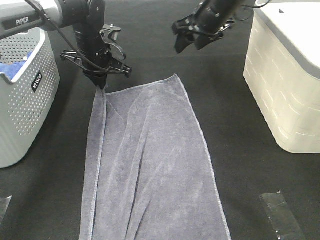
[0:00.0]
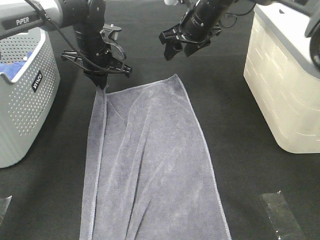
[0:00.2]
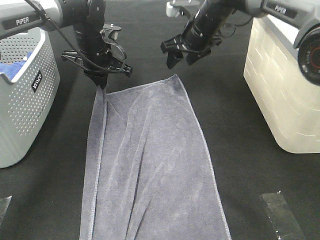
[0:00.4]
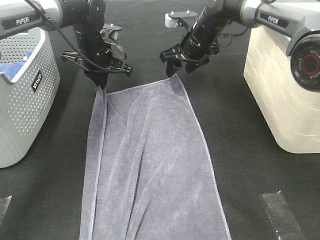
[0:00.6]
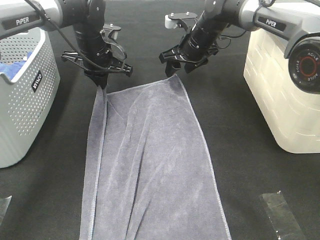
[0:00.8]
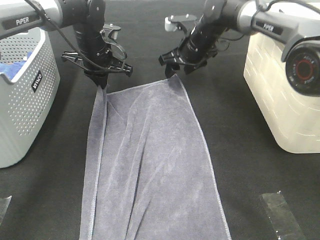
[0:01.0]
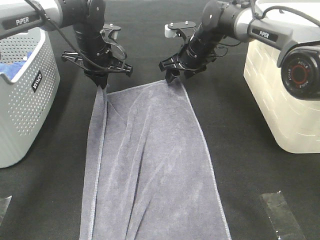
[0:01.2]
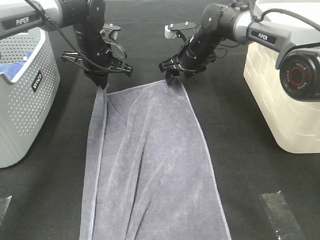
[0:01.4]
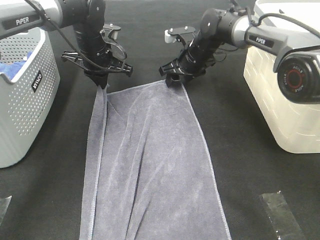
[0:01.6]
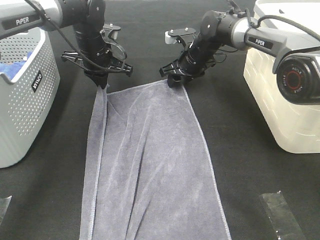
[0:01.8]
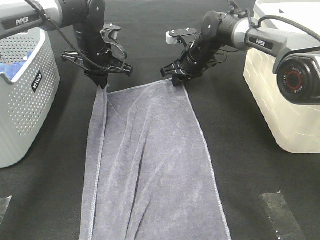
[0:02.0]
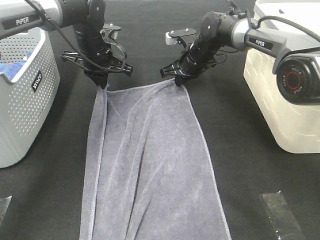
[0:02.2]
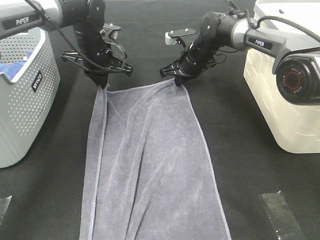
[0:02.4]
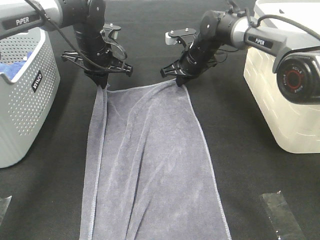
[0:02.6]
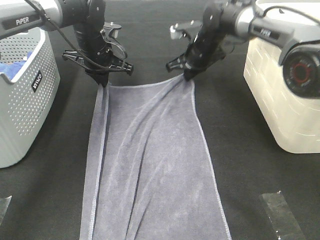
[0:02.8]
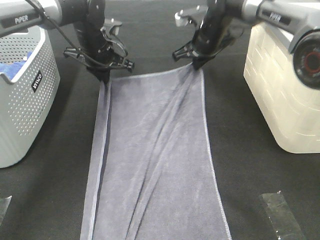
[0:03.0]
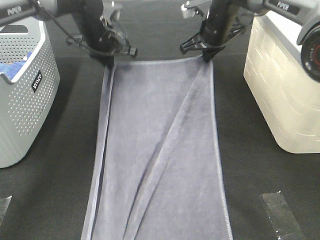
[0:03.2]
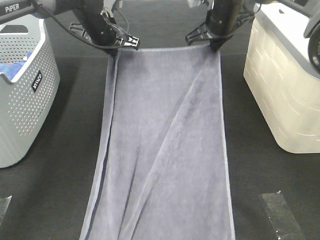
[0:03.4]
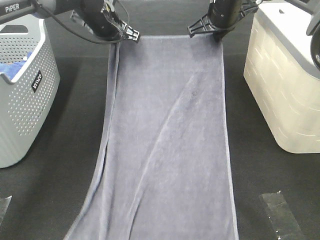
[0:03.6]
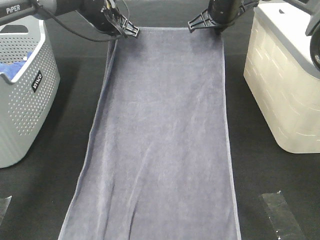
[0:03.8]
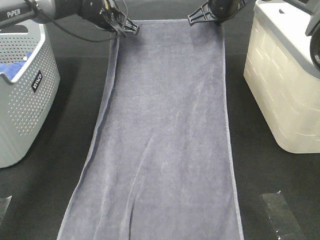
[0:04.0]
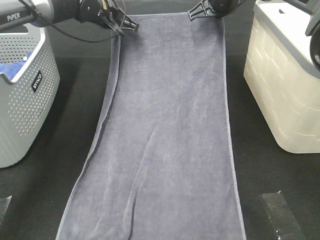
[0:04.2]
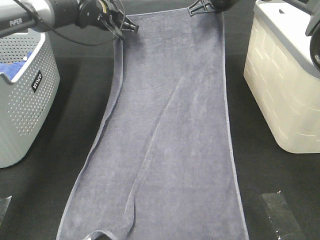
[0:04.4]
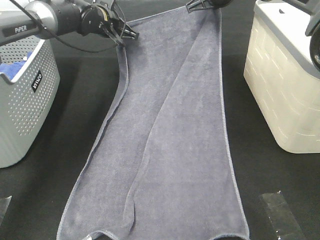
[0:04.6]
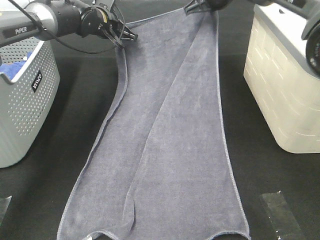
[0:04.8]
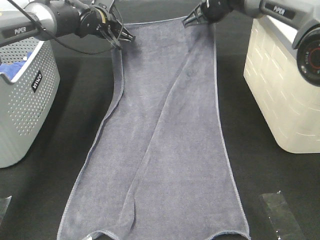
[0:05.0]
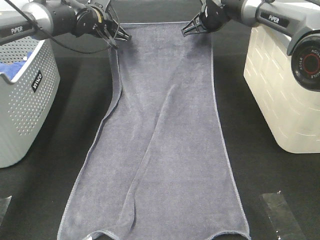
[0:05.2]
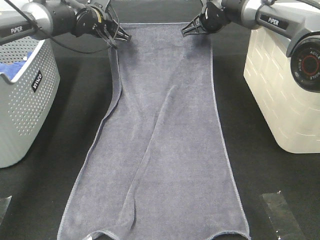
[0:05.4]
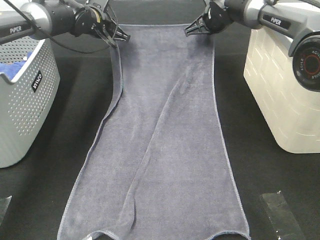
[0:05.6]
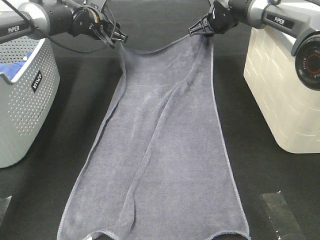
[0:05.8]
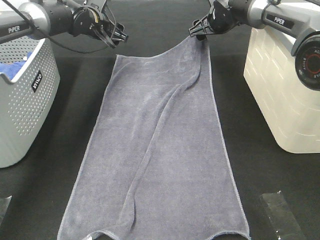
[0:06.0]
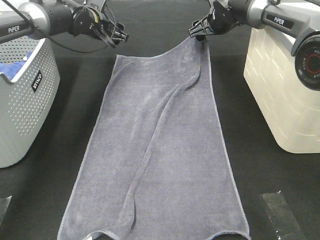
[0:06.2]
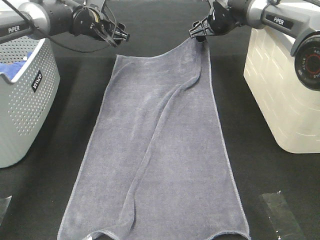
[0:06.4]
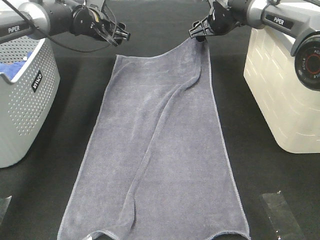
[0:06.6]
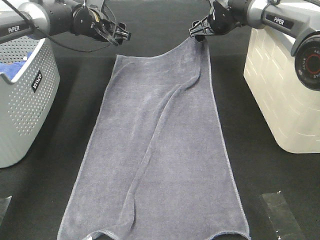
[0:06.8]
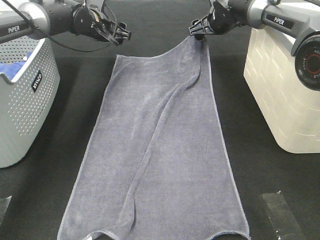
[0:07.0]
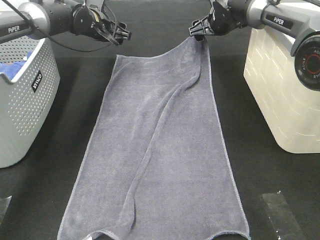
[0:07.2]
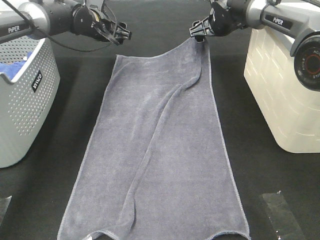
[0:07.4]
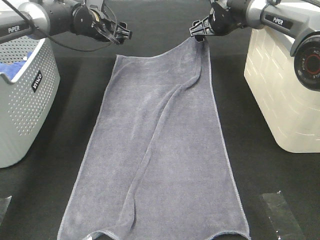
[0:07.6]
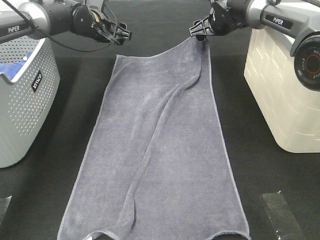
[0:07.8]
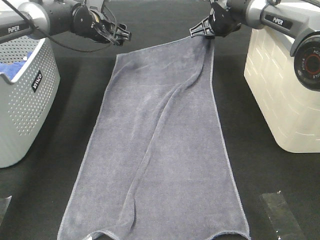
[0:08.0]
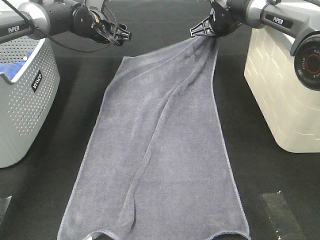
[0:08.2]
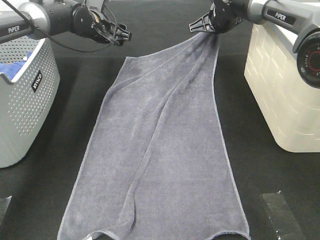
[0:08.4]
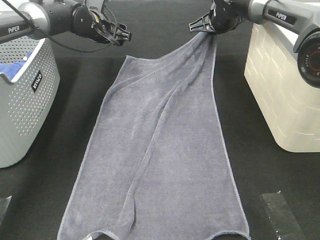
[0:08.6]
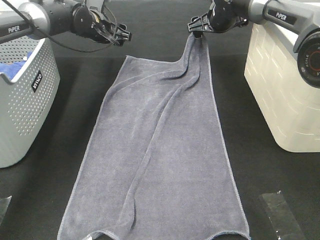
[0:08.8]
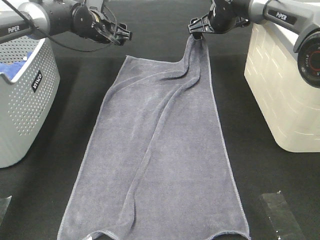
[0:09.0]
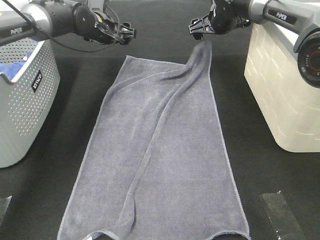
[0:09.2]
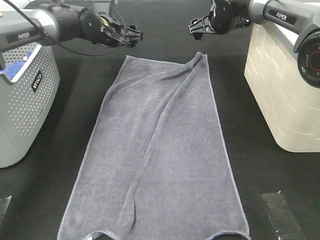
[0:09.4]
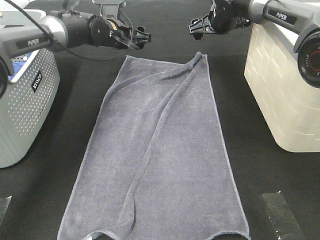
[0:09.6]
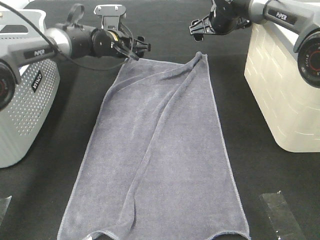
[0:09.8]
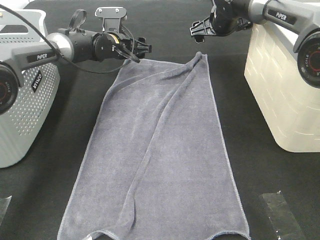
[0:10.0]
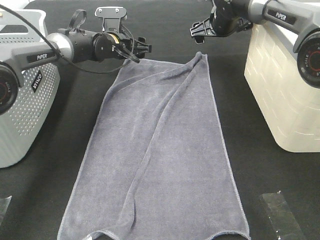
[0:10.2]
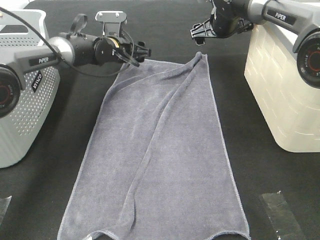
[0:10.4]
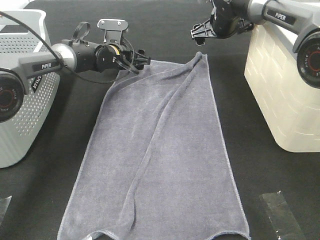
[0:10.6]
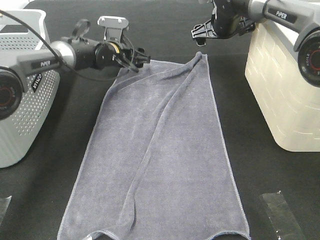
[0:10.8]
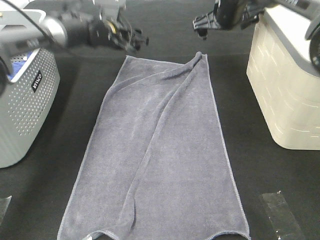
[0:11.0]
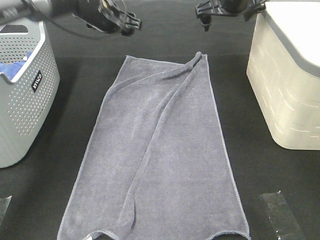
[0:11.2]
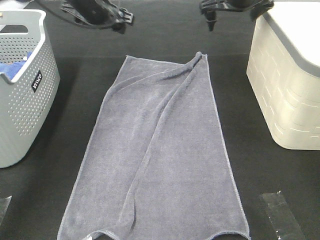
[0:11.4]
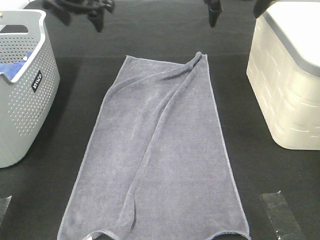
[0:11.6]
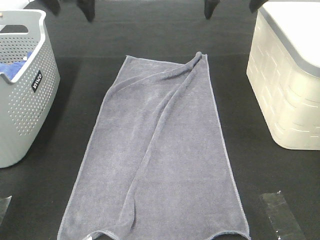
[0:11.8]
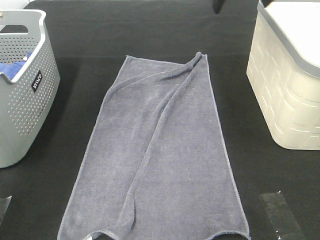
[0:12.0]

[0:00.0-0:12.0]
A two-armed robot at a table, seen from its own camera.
Task of the whole recording: Remove the towel and place it.
0:00.0 to 0:01.6: The right gripper goes some 10 cm downward.
0:01.6 to 0:03.0: The right gripper goes about 5 cm upward, and closes its fingers.
0:03.0 to 0:04.4: The left gripper moves forward, some 5 cm; the right gripper goes roughly 10 cm upward.
0:04.4 to 0:06.0: The left gripper opens up. The right gripper goes some 5 cm downward, and opens up.
0:06.0 to 0:07.6: The grippers move only a little.
0:07.6 to 0:09.0: The right gripper closes and opens again.
0:09.0 to 0:10.4: The left gripper moves downward, roughly 5 cm.
0:10.4 to 0:12.0: The left gripper shifts about 35 cm upward and backward; the right gripper goes some 20 cm upward and backward.

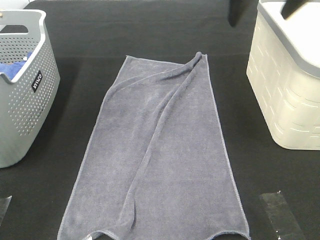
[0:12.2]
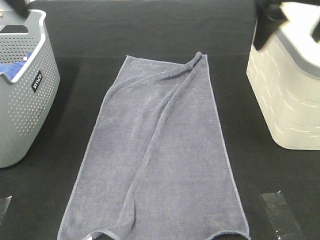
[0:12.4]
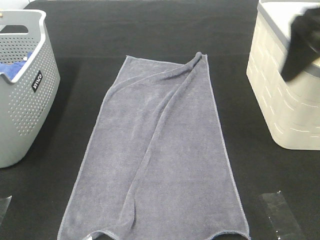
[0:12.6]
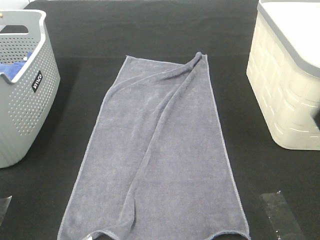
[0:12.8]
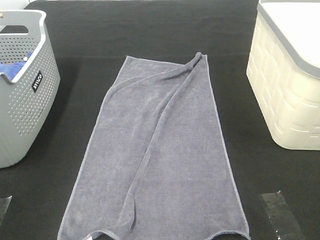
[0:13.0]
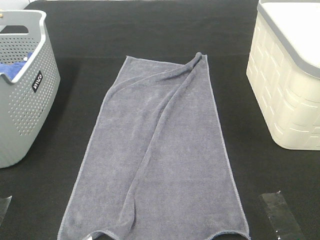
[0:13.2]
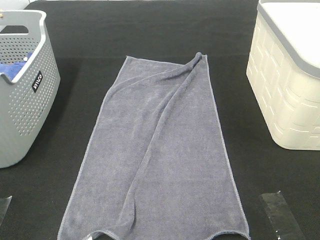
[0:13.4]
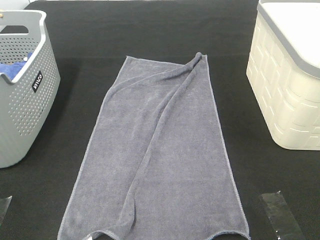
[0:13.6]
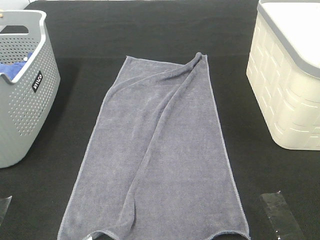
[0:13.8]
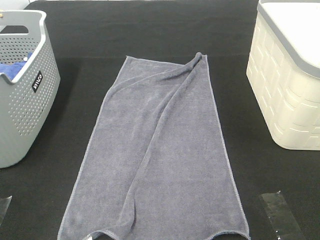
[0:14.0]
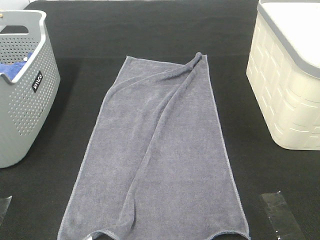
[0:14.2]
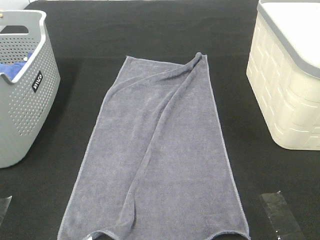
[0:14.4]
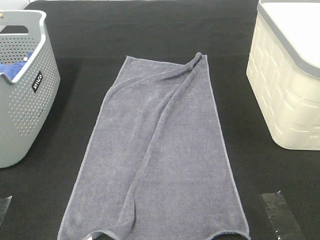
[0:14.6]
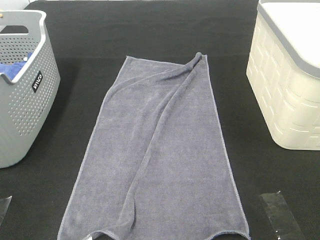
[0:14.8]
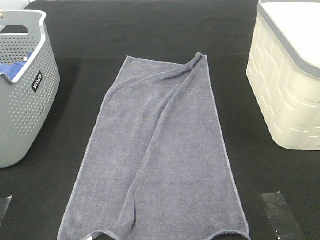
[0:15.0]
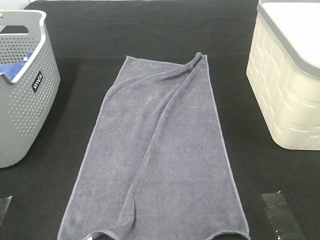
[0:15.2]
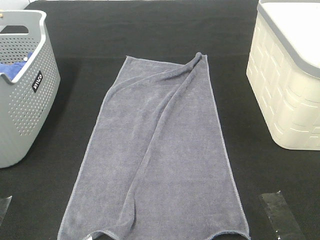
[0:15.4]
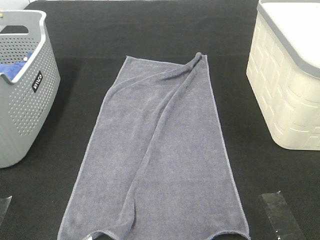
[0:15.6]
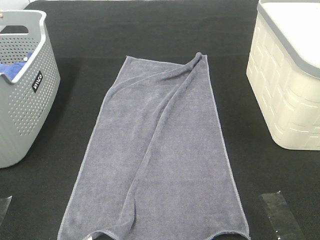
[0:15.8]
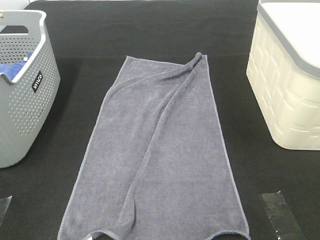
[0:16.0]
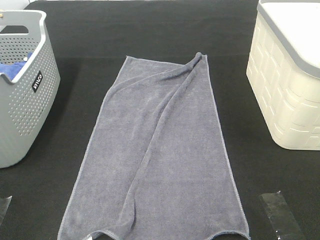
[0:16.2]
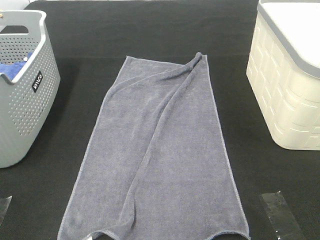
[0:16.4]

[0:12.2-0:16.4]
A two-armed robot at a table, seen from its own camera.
Task of the whole recording: Remove the towel and place it.
0:12.2 to 0:13.6: Both grippers move backward, roughly 35 cm.

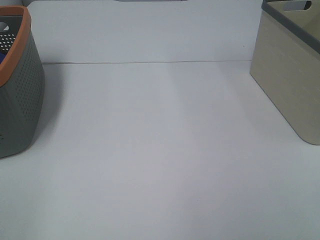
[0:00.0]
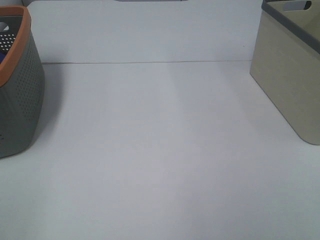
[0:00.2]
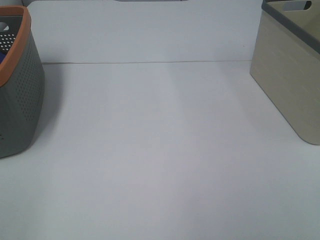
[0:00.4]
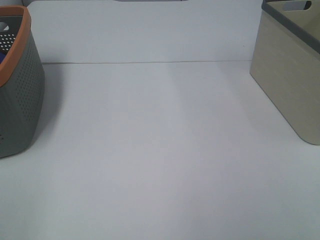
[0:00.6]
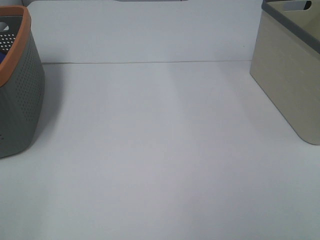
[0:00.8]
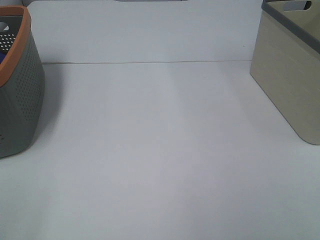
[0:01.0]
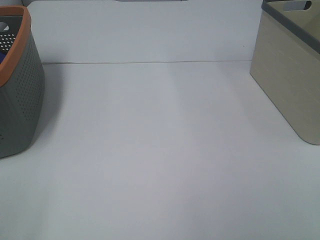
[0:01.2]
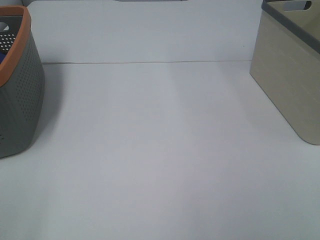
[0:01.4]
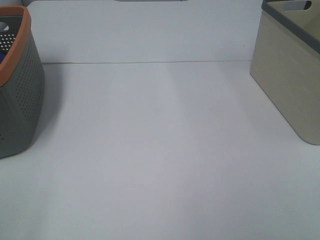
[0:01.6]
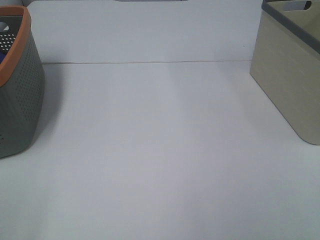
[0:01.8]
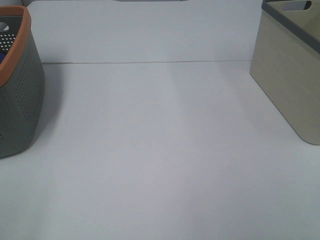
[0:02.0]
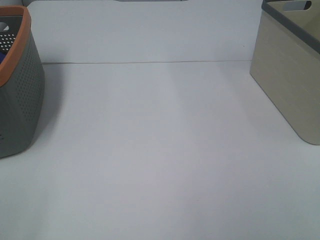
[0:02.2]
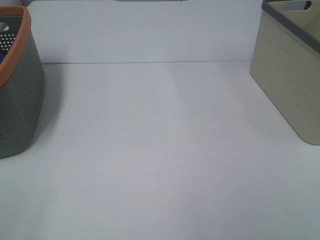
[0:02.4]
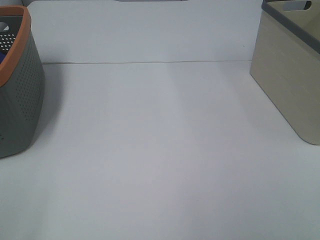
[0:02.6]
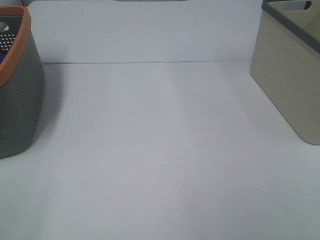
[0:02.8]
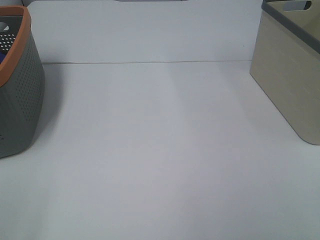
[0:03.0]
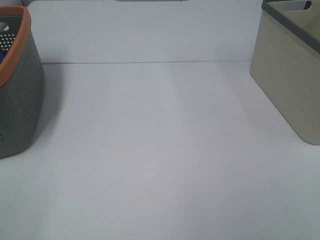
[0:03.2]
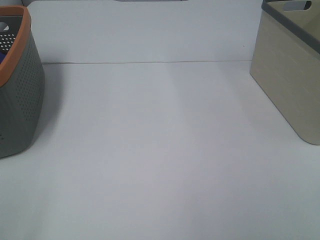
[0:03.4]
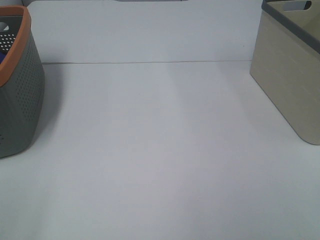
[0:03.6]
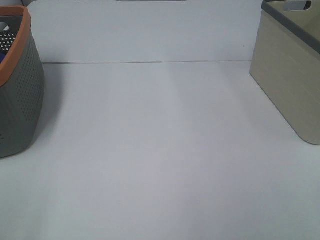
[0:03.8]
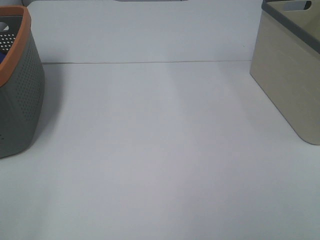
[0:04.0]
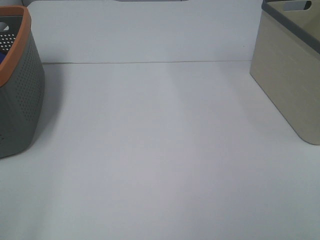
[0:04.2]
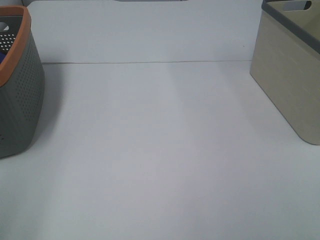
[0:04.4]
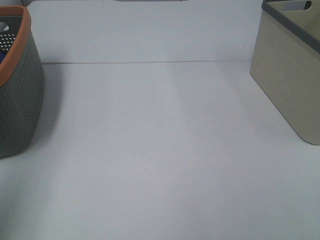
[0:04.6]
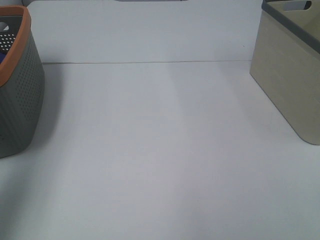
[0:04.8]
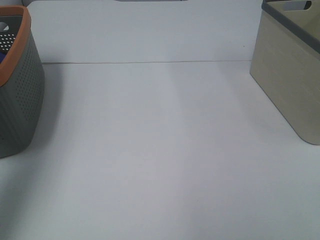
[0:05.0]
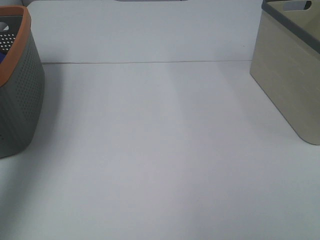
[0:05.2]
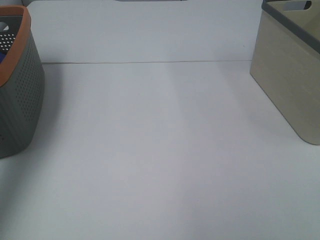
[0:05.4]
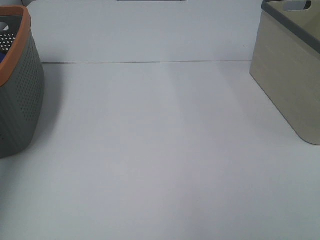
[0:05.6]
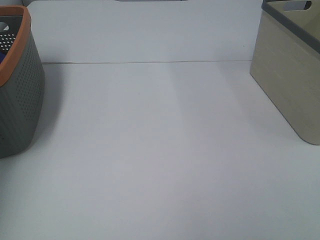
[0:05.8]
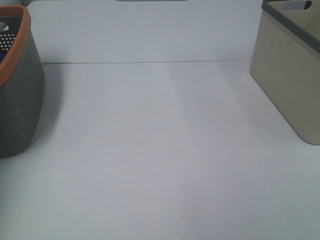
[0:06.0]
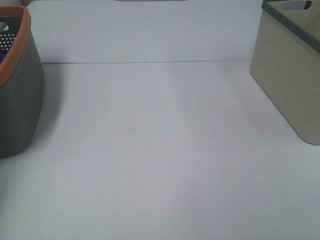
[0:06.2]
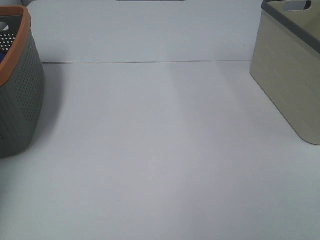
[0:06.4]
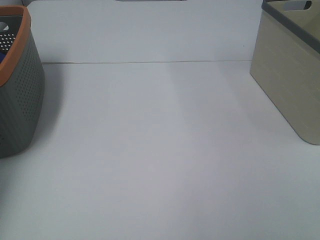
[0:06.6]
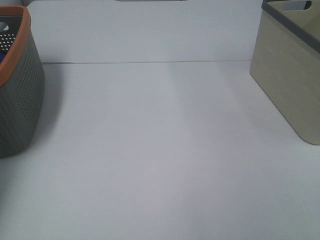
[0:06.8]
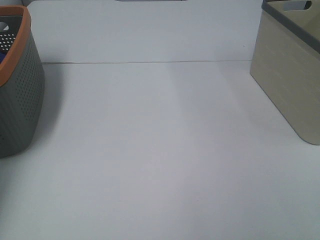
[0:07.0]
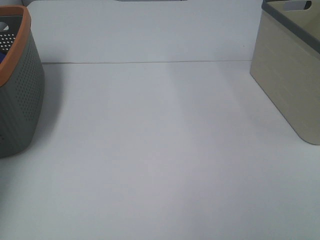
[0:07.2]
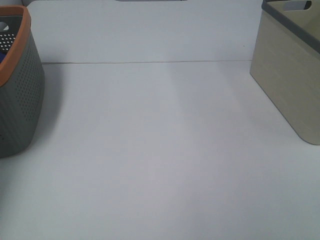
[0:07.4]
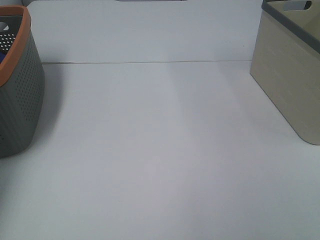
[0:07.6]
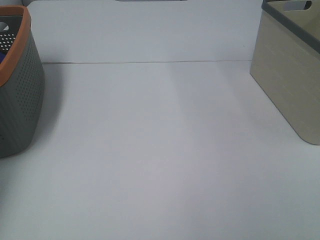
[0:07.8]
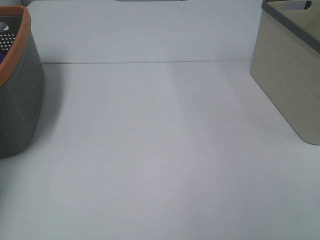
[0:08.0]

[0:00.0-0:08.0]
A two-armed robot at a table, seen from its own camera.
Task of the whole recording: Remove the towel and place it.
0:00.0 to 0:03.2: Neither gripper changes place.
0:03.2 to 0:04.8: The left gripper travels forward and upward by approximately 20 cm.
0:04.8 to 0:06.4: The left gripper goes approximately 30 cm forward and downward.
